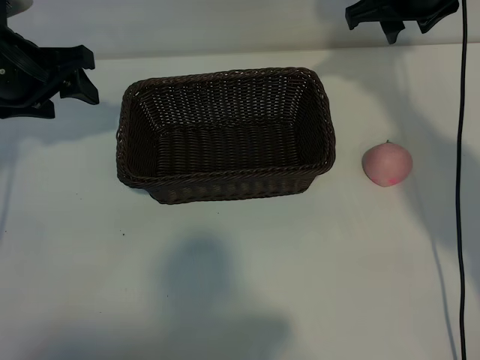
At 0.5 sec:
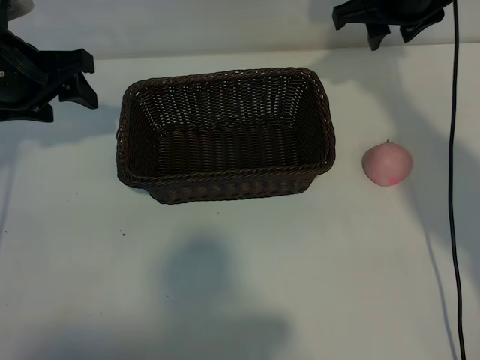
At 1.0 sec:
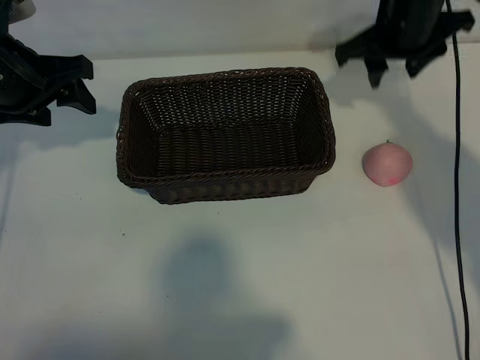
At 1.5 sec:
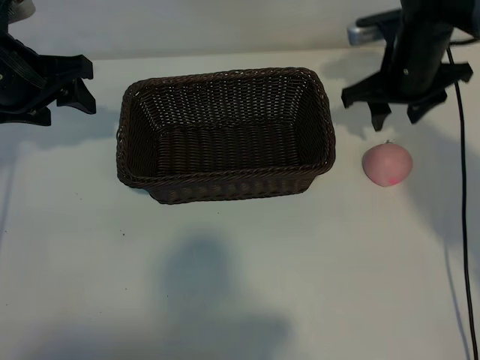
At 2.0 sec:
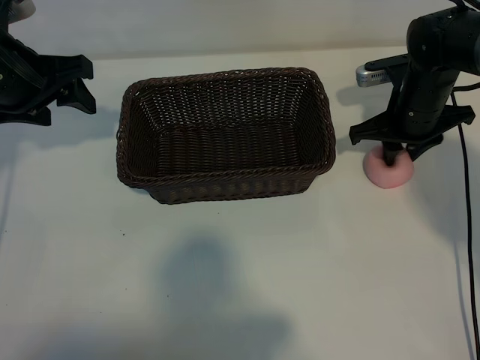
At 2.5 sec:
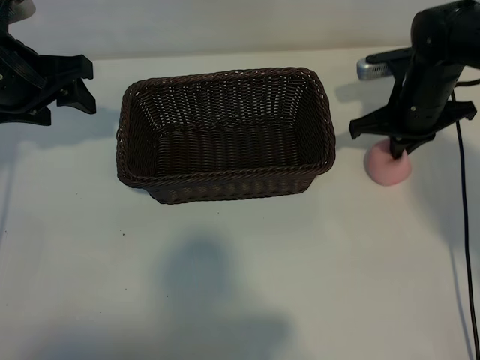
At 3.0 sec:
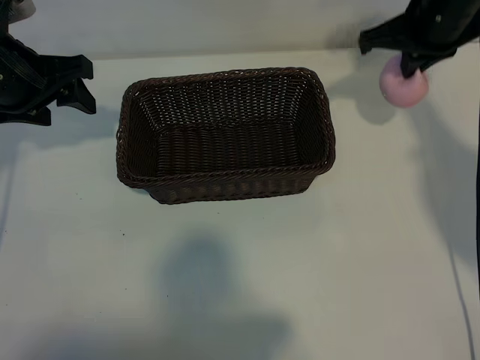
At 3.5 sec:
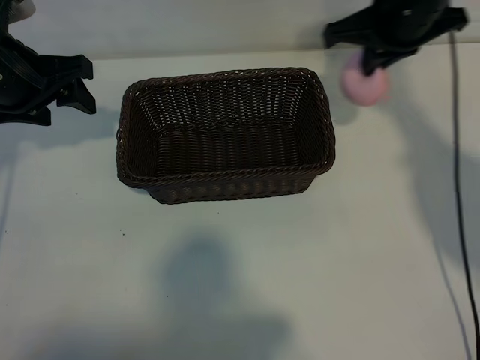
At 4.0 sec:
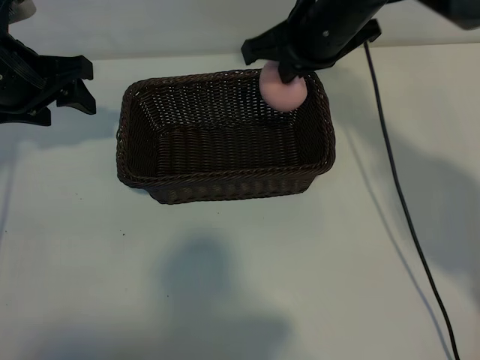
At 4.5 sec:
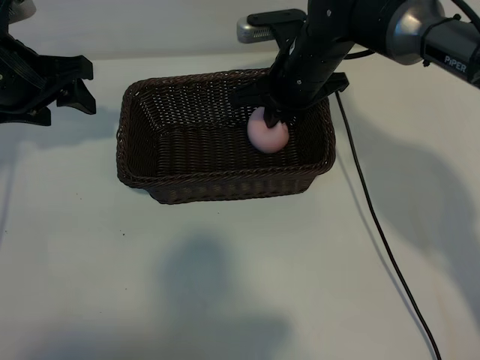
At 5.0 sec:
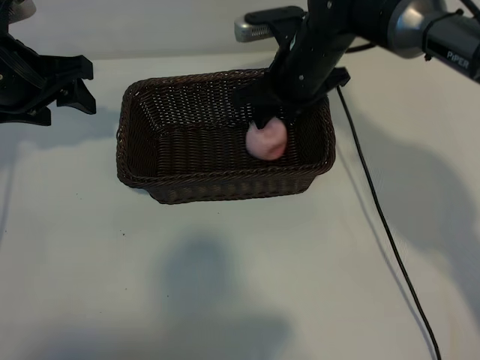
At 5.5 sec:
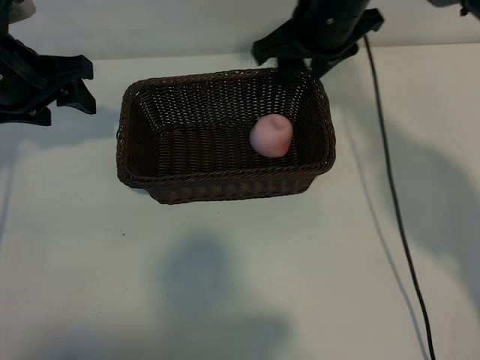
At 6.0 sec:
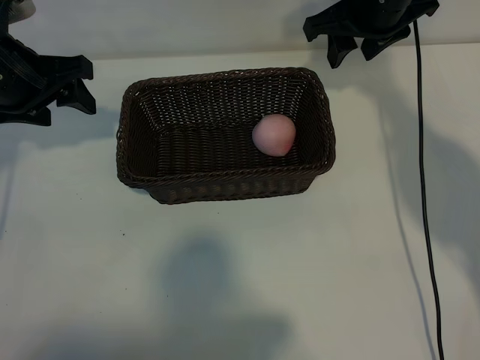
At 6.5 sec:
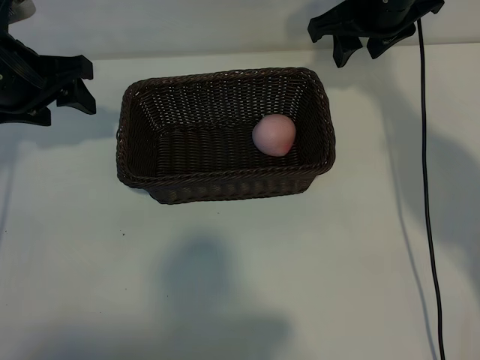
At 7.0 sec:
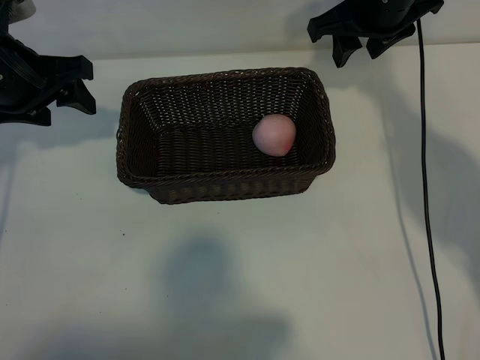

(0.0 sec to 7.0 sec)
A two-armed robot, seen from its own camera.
Task of the whole recording: pick up the peach and put it into the basket.
Step, 0.0 sec - 2.0 sec: Grasp the peach with right gripper.
Step, 2.5 sec - 5.0 sec: Place the peach in the basket with right gripper.
